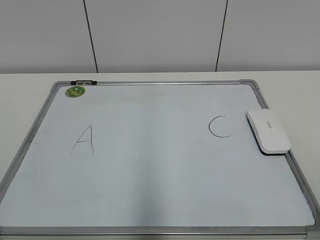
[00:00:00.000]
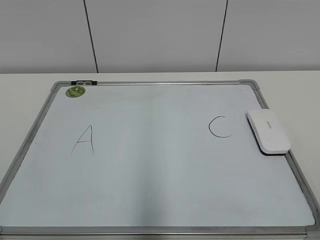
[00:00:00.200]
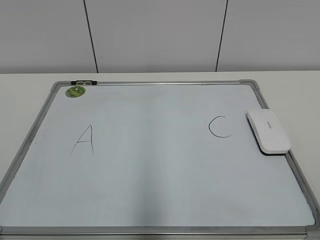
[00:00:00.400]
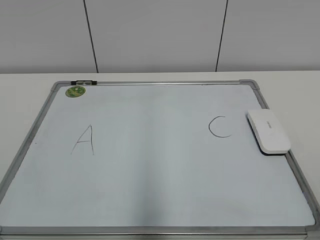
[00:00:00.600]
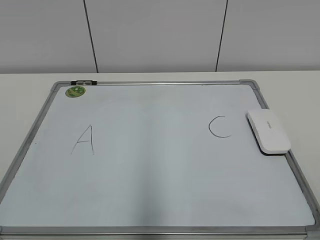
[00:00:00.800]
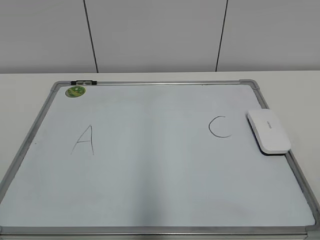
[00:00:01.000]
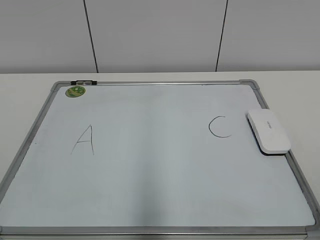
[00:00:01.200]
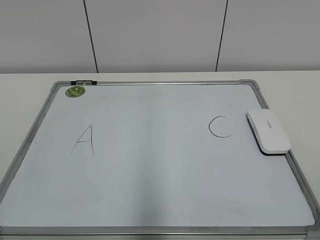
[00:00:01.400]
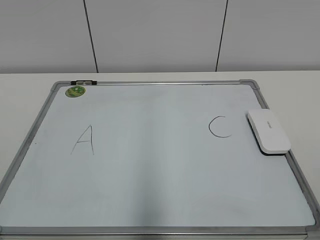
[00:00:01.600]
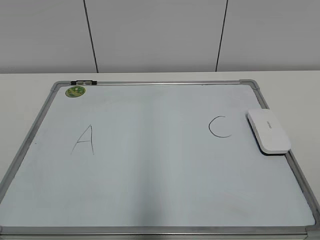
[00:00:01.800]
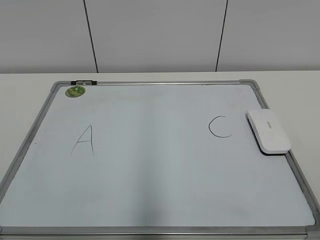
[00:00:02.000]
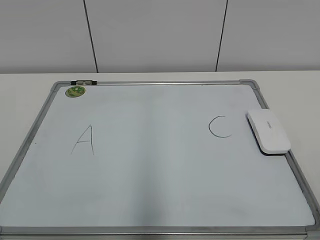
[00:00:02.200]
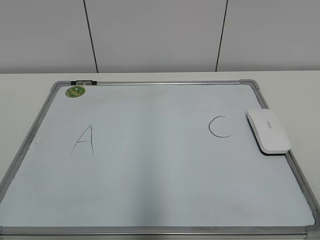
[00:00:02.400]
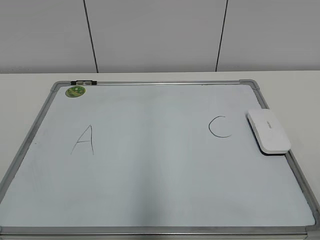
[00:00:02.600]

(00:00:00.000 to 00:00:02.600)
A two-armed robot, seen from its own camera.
Task of the whole recording: pick up the eraser on the blackboard and erase the letter "B".
00:00:00.000 - 00:00:02.600: The two grippers keep their place.
